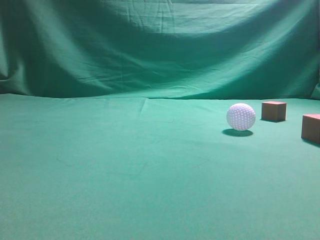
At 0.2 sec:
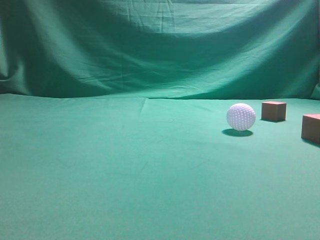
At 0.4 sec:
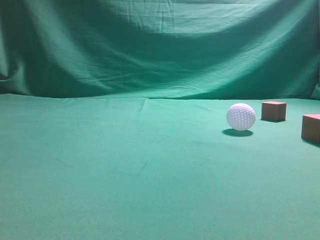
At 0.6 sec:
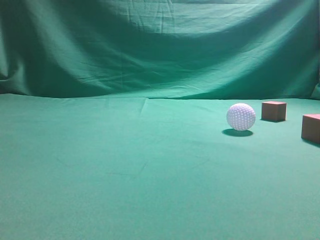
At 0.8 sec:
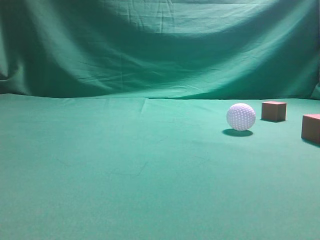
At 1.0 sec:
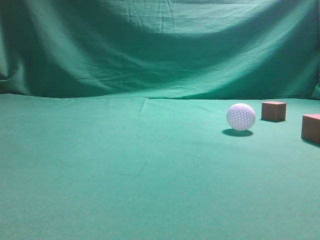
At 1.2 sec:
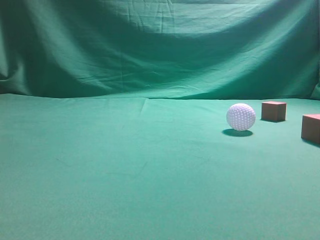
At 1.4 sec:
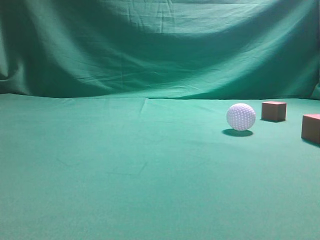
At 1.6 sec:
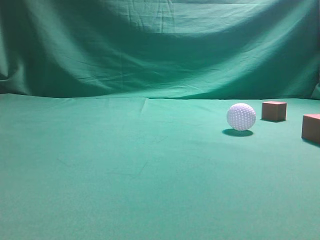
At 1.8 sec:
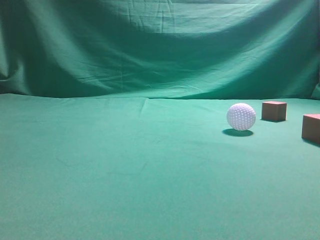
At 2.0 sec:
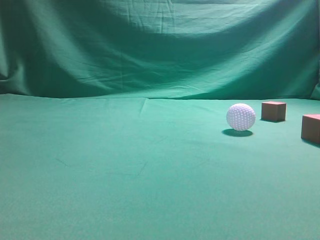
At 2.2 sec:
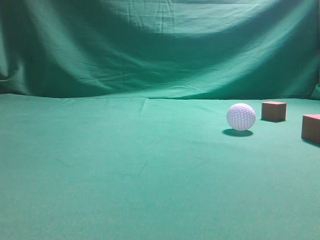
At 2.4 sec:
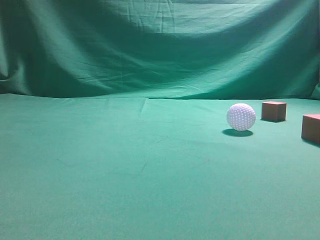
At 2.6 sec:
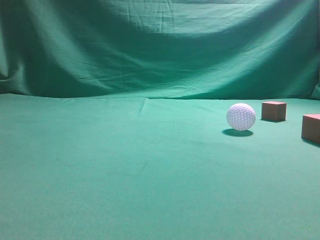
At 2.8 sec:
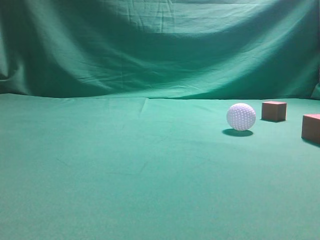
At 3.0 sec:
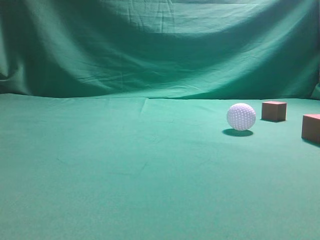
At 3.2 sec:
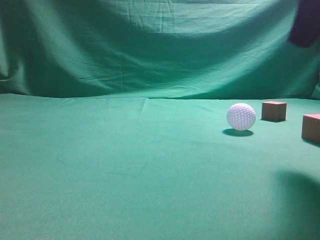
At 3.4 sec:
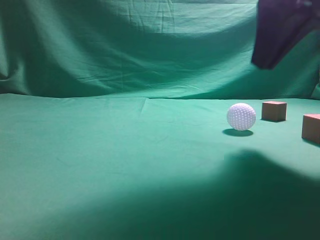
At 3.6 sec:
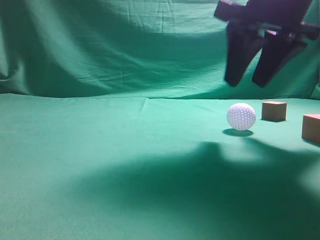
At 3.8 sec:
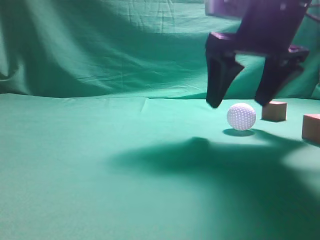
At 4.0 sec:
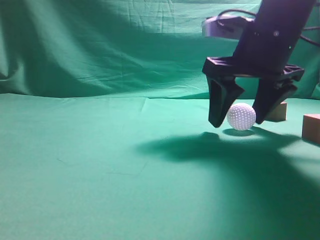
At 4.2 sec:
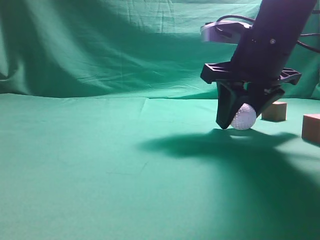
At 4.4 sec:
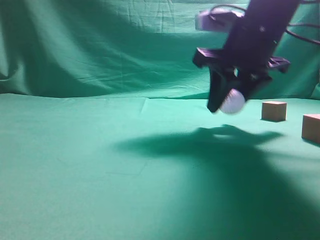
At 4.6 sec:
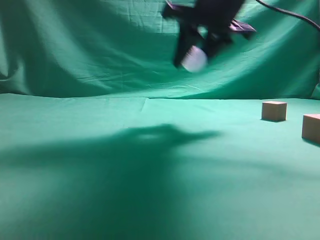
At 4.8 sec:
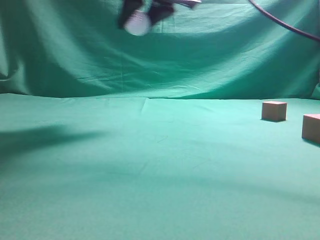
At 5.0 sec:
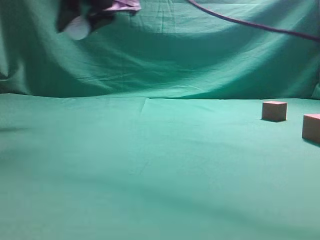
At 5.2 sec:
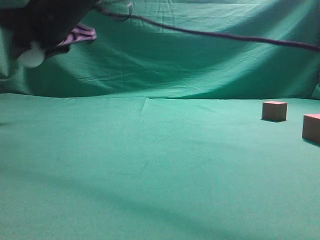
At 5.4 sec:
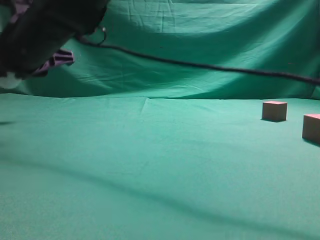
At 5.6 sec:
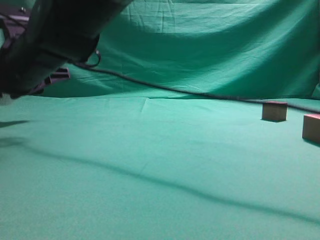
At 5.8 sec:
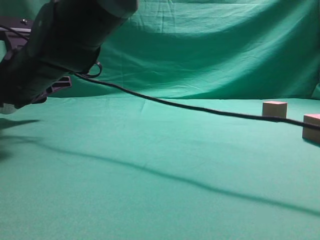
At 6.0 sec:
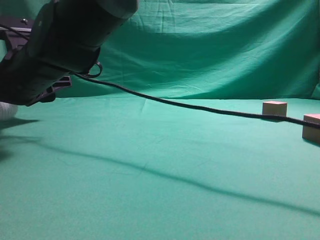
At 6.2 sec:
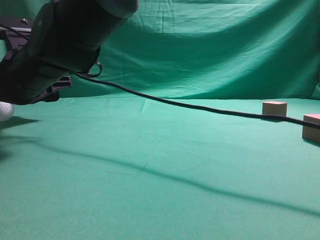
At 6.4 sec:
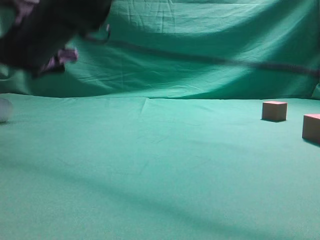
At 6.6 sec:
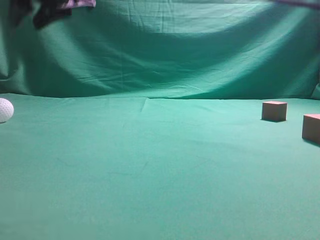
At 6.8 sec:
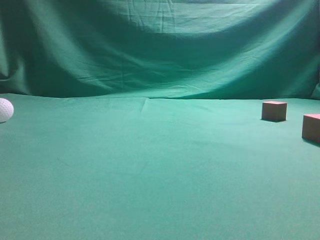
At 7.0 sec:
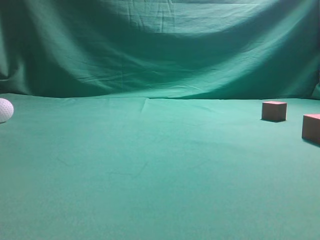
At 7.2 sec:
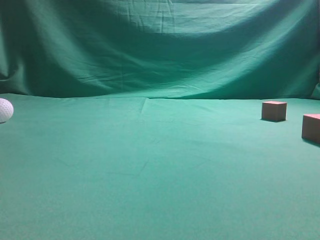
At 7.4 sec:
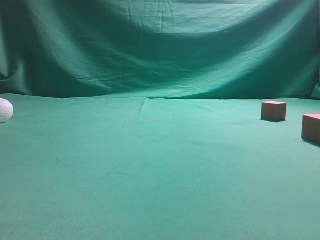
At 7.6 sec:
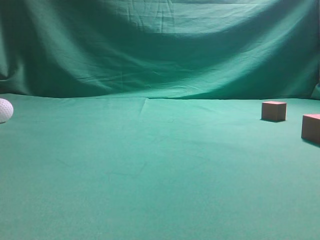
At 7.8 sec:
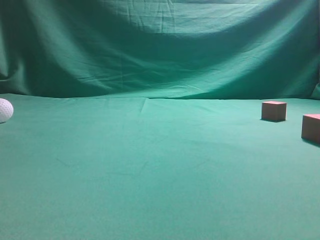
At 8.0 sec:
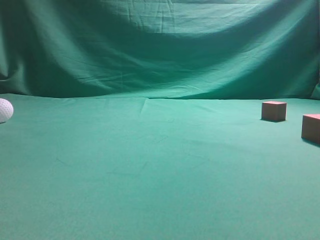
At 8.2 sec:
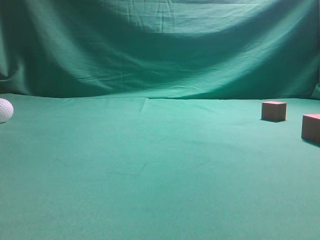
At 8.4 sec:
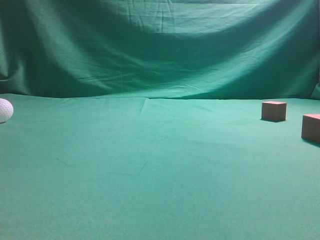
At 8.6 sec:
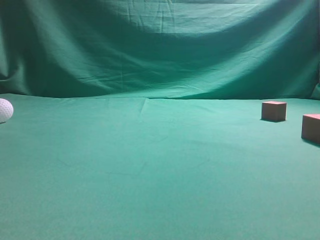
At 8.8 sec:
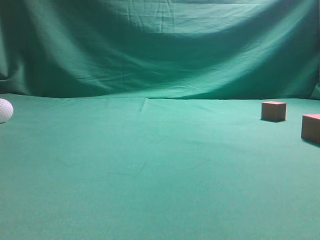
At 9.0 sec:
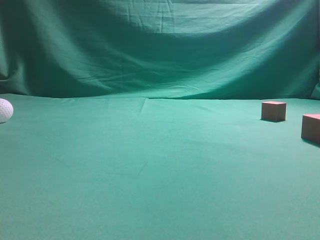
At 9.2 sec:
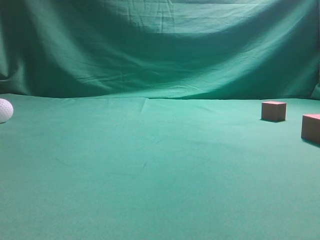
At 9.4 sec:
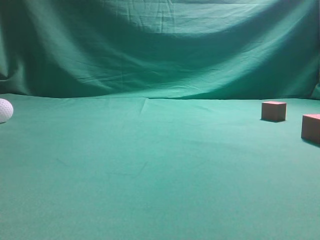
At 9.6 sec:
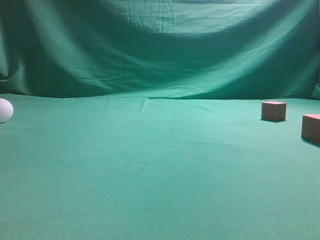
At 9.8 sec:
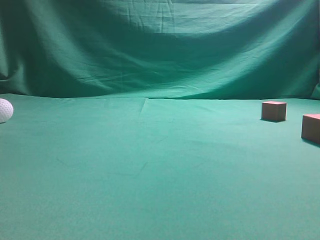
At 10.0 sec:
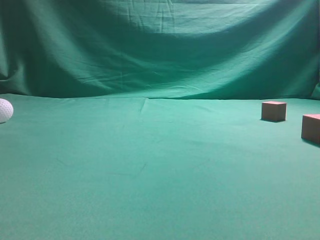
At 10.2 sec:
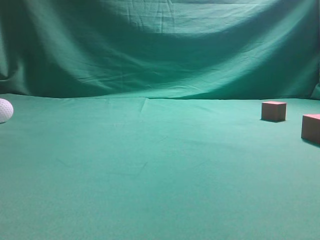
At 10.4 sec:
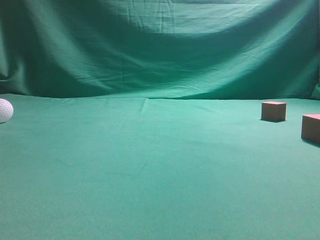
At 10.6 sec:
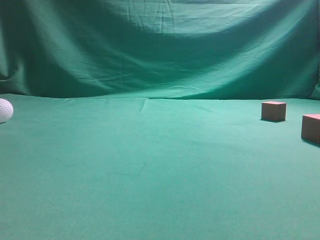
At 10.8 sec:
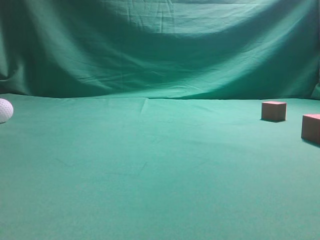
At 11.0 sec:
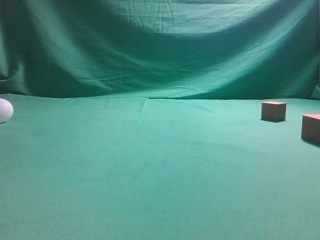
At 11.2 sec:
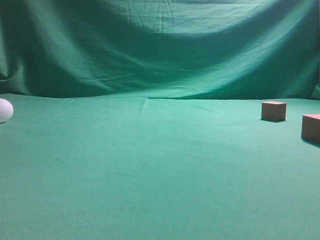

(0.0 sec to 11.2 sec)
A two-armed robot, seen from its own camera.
Step, 0.0 sec - 4.4 sec: Grasp the spherical object on the right side.
1.6 sec - 3.2 sec: The right gripper goes roughly 30 cm forward and to the left, and opens.
3.2 sec - 4.8 sec: The right gripper moves to the left, some 25 cm, and opens, then closes once more.
4.8 sec - 6.4 sec: The right gripper moves upward, some 10 cm, and closes up.
6.4 sec - 8.0 sec: The right gripper moves to the right and backward, roughly 35 cm.
